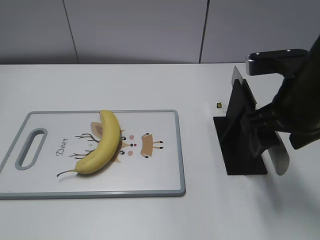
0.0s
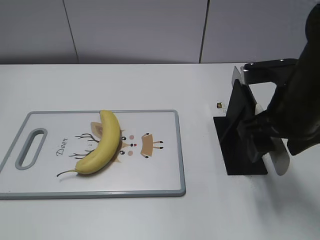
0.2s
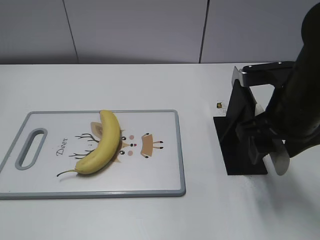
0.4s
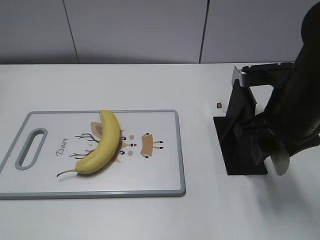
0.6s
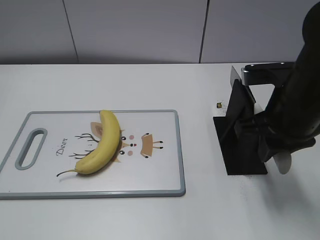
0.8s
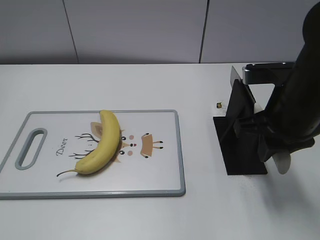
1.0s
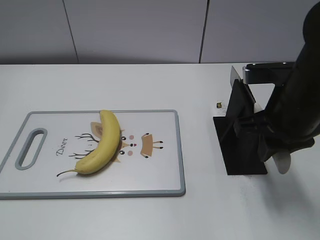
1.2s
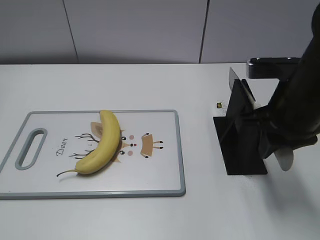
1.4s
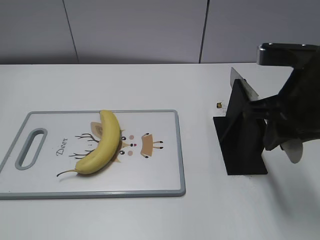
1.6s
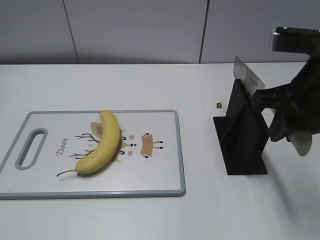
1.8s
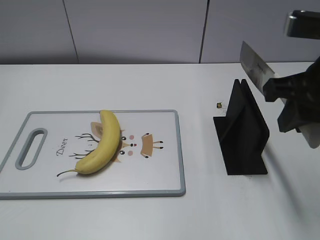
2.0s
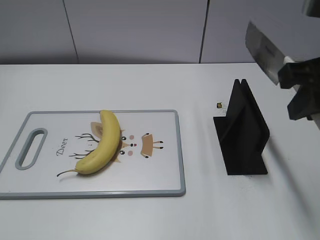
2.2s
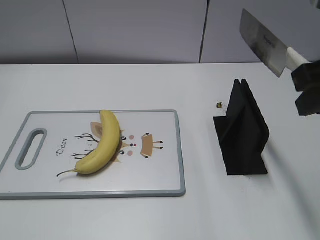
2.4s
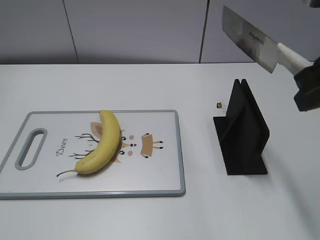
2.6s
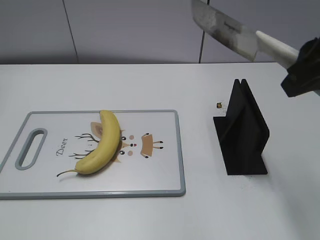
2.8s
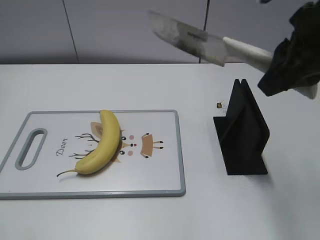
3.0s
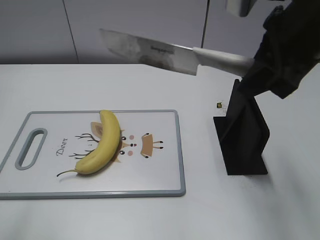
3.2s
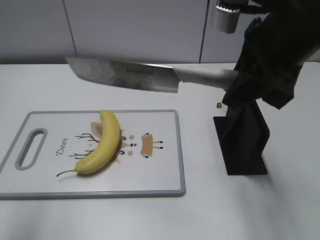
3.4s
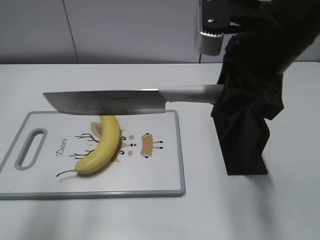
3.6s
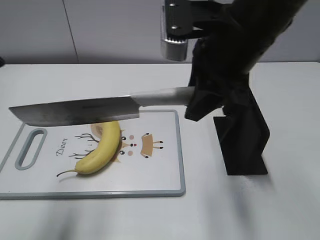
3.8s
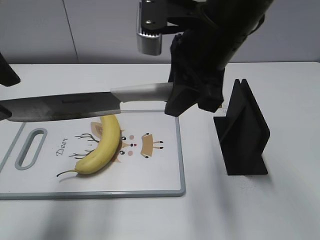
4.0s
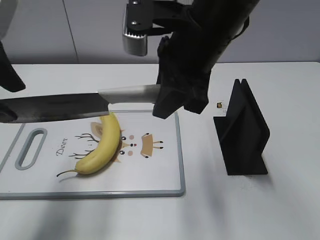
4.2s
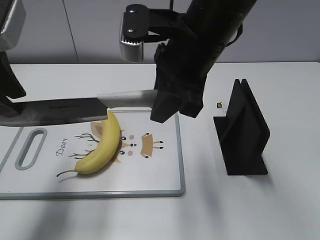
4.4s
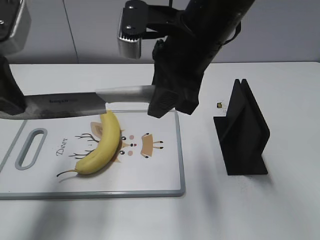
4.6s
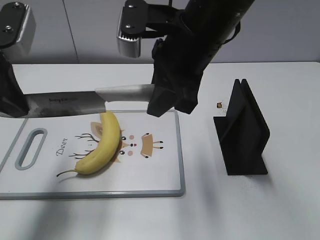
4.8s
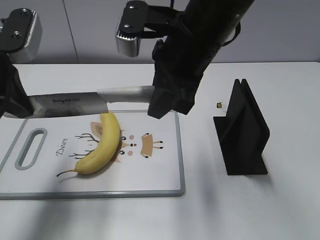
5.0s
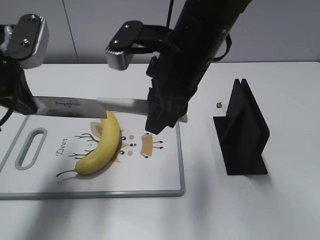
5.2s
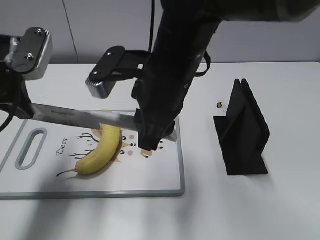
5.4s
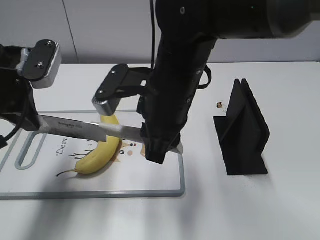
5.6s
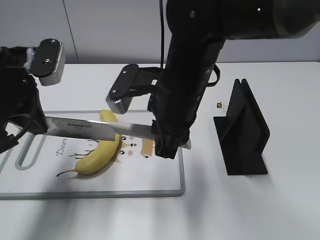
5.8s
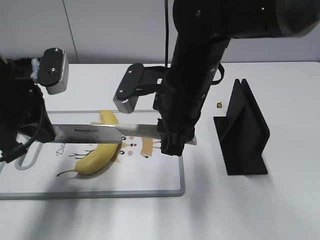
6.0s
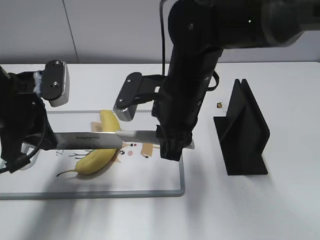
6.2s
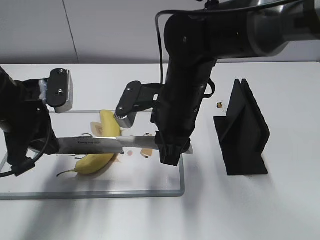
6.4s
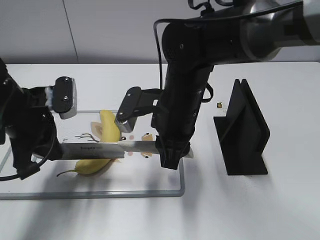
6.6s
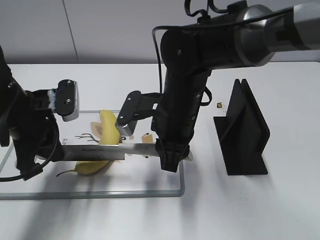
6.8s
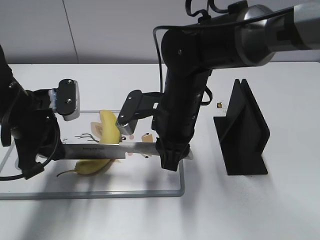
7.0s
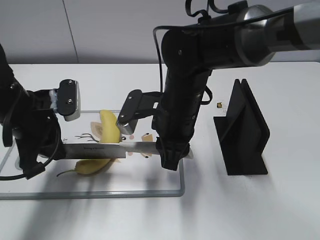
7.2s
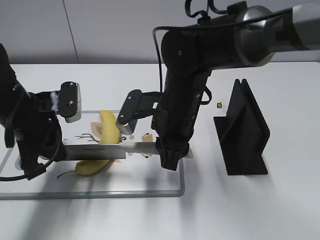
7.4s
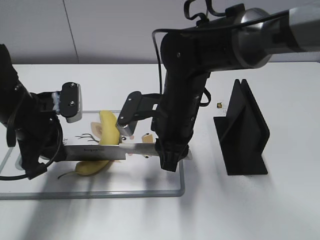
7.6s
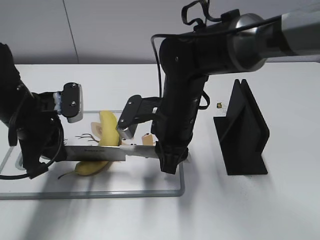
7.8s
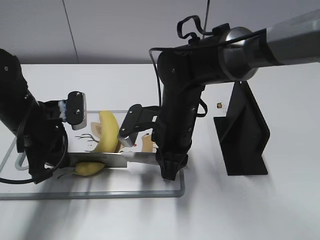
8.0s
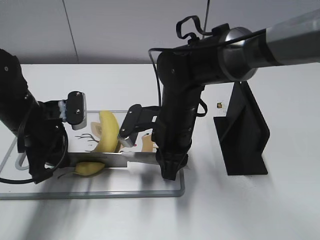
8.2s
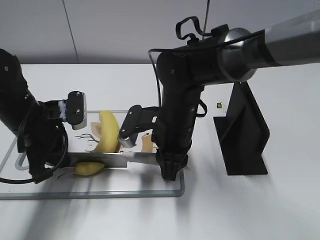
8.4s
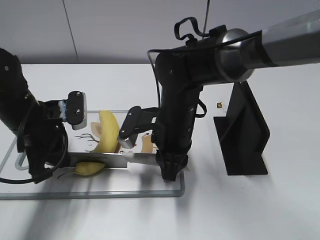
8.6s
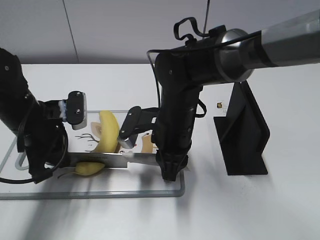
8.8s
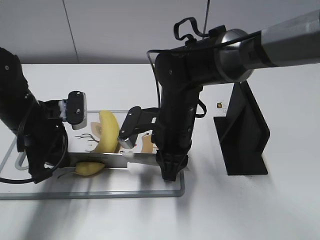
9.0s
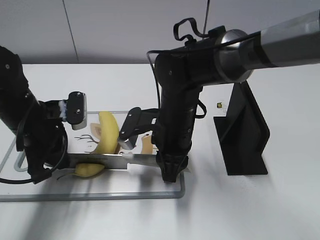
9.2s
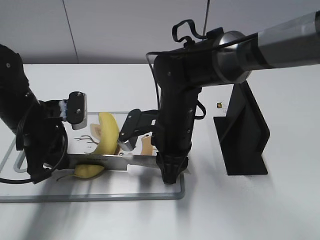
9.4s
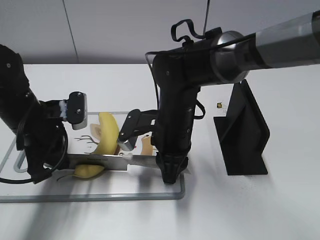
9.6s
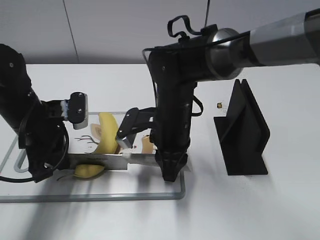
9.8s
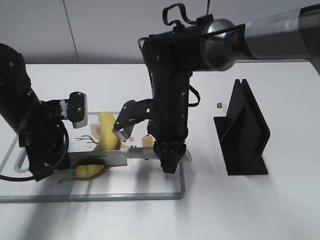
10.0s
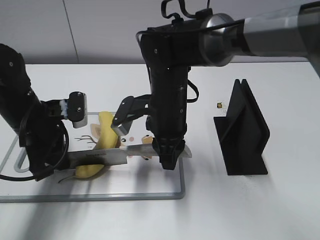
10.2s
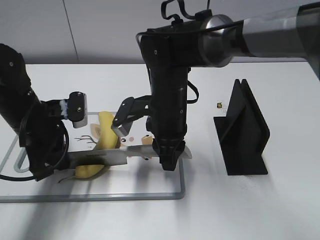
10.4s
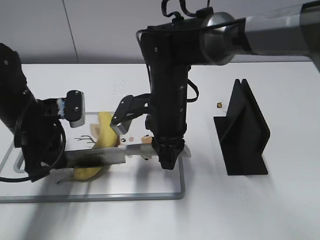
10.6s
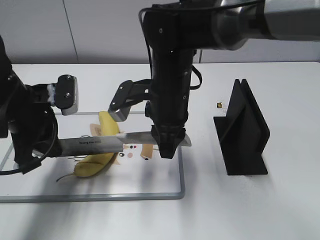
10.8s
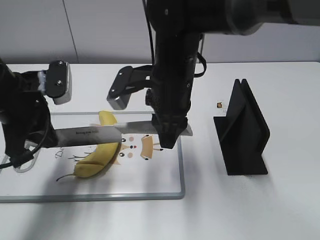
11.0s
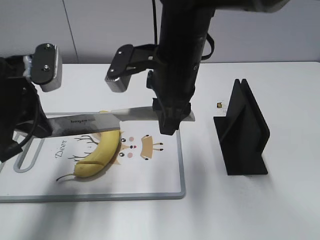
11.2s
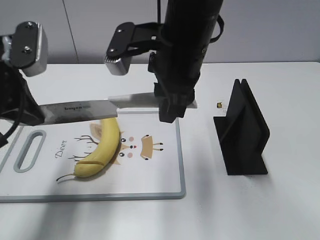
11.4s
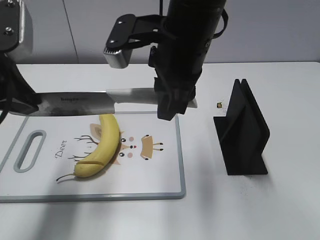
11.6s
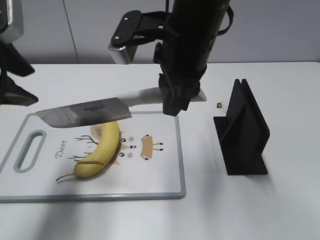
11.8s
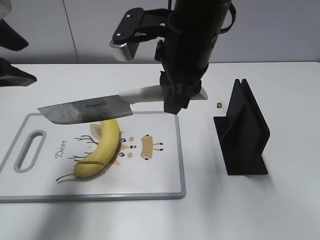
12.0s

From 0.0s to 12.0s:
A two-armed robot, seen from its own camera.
Task of the whole recording: cut banana.
Step, from 0.0s to 2.2s: Grab the knife handle with your right hand.
Step, from 2.4s to 7.2s: Lift the knife with your right hand.
From 0.0s to 1.6s: The right gripper closes.
From 1.6s to 3.0s: The left gripper heads upward and forward, covering some 10 cm. The right gripper is displaced upward by approximately 10 cm.
From 3.0s to 4.4s: The left gripper heads forward, covering approximately 20 cm; the right gripper goes some 15 cm to the left and downward.
From 4.4s to 6.0s: Both grippers travel together downward, some 10 cm. The left gripper closes.
From 6.0s to 7.6s: Both grippers travel together downward, some 5 cm.
From 7.6s to 9.0s: There are only small adjustments of the grippers.
From 10.4s to 12.0s: The two grippers go about 15 cm upward. The left gripper opens its fingers.

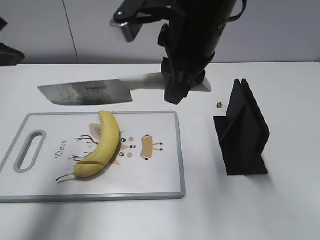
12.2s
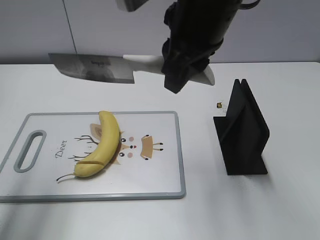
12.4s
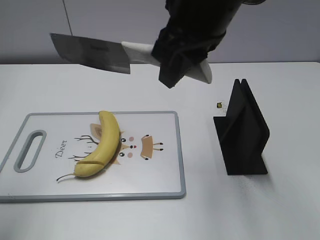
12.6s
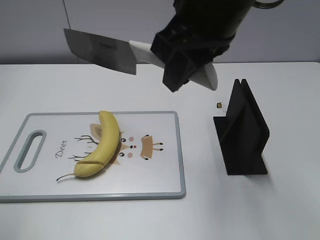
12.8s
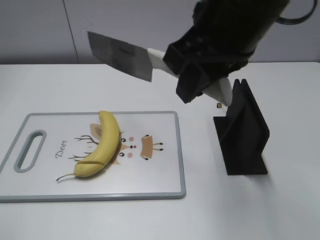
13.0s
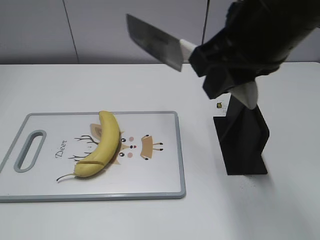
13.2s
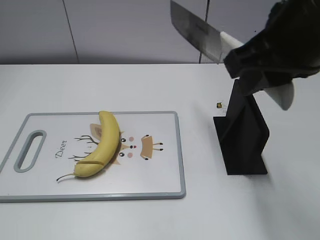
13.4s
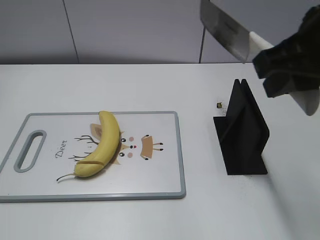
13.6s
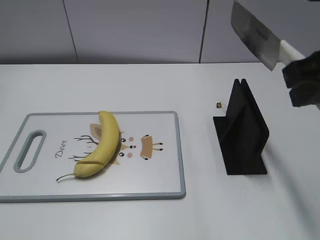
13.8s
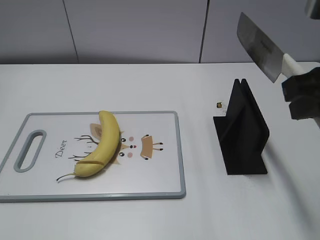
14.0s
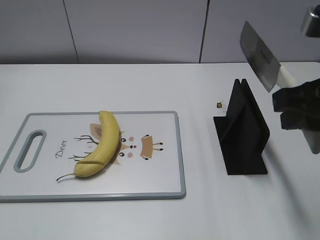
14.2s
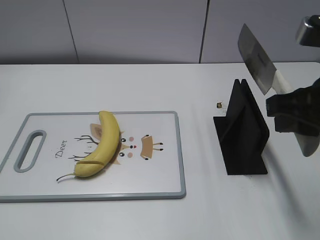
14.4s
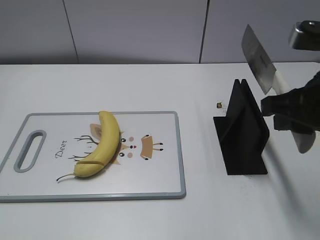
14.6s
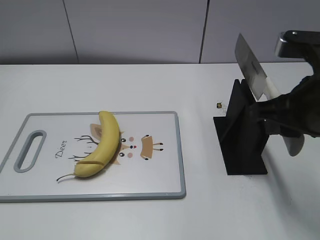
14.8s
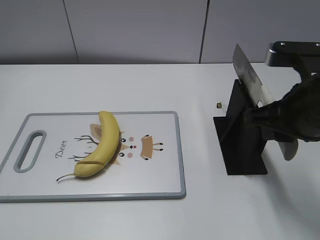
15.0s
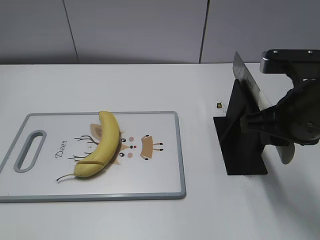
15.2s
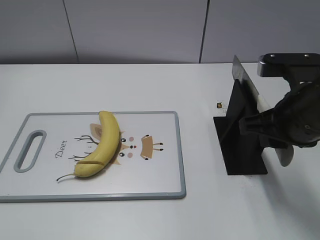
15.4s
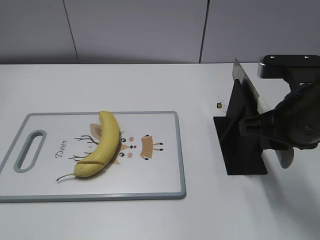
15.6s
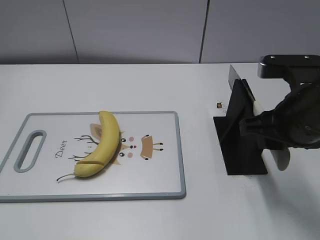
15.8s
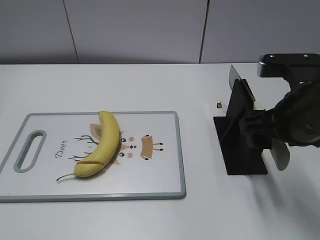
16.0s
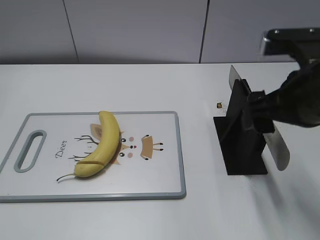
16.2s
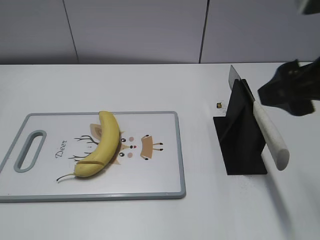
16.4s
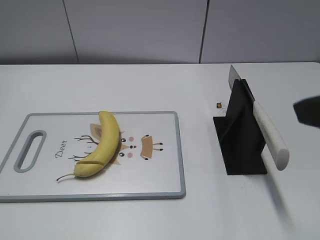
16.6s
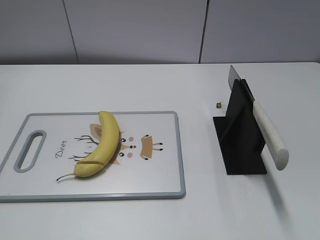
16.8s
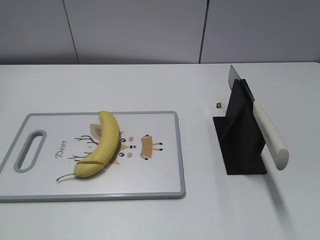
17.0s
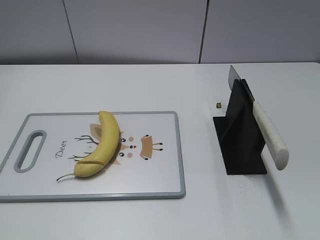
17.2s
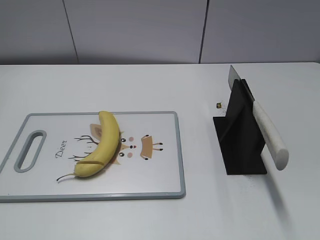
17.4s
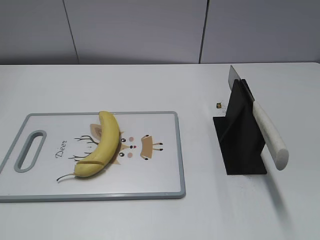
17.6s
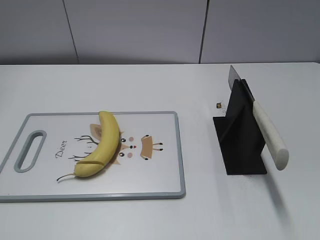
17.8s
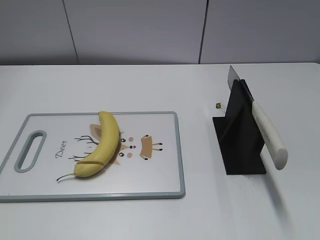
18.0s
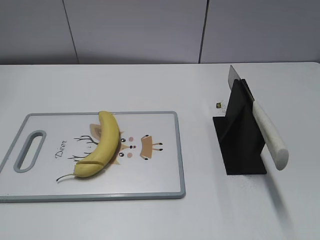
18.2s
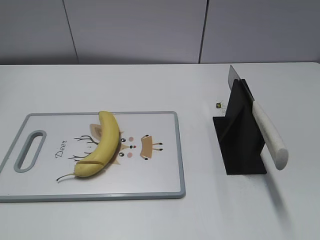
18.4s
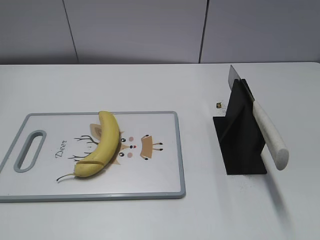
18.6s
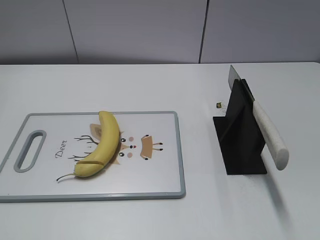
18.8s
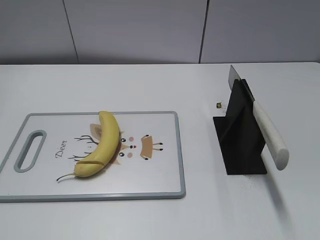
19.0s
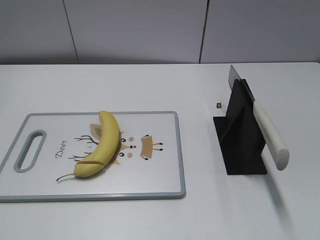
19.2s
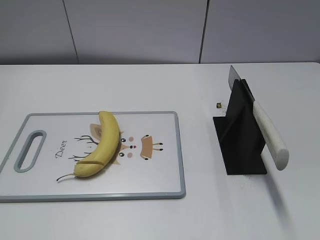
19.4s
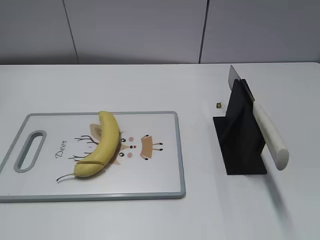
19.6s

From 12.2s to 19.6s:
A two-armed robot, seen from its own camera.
Task of the whole recording: cut banana.
Step, from 15.6s to 19.6s: Place the knife on the storage rack with your right hand.
From 12.2s to 13.6s: The right gripper is displaced to the right and backward by about 15 cm. The left gripper travels backward by about 25 cm.
From 13.6s to 15.2s: The right gripper moves downward, approximately 10 cm.
From 15.2s to 16.6s: The right gripper shifts some 15 cm upward and backward, and opens up.
From 16.6s to 18.2s: The right gripper travels backward and to the right by roughly 15 cm.

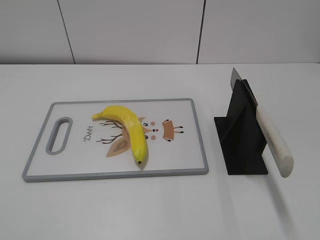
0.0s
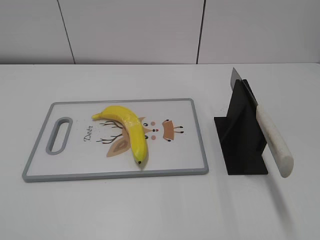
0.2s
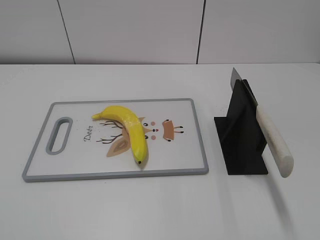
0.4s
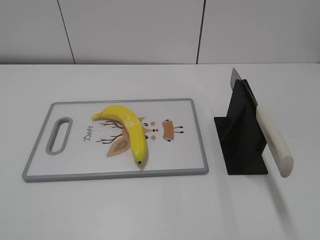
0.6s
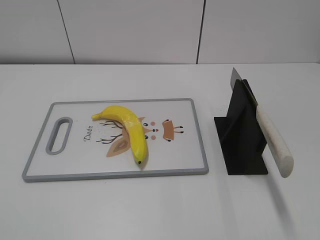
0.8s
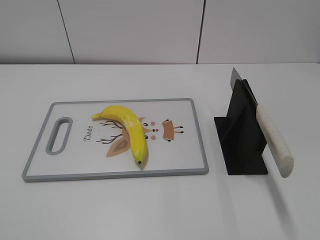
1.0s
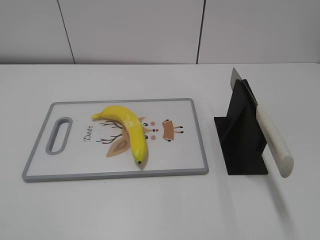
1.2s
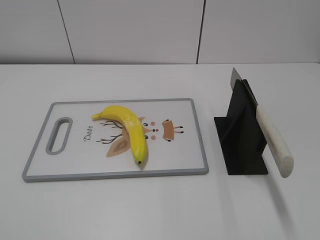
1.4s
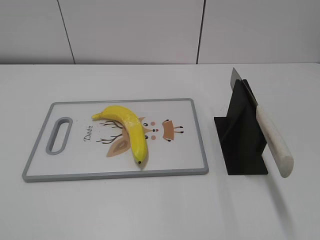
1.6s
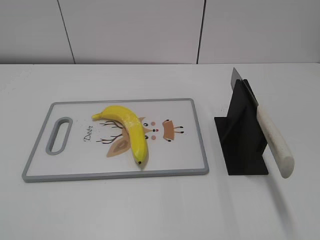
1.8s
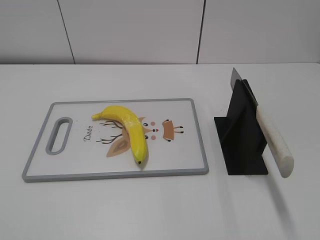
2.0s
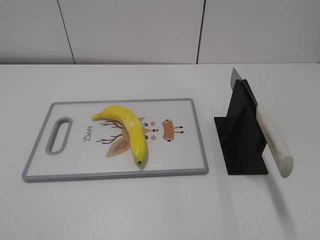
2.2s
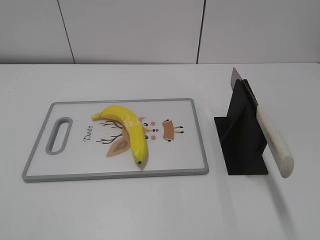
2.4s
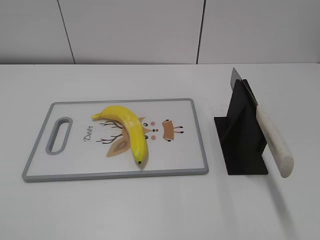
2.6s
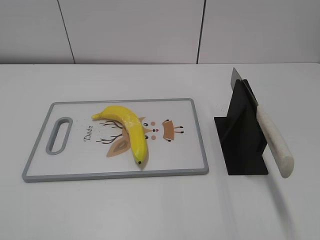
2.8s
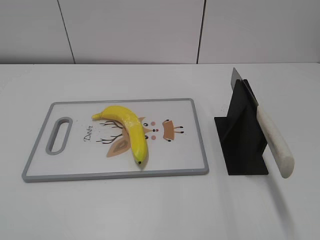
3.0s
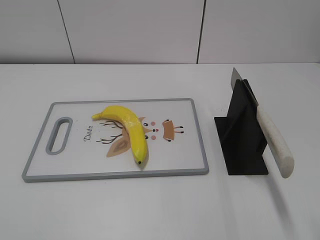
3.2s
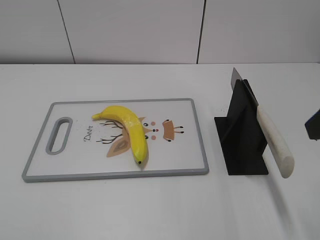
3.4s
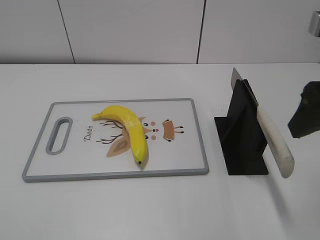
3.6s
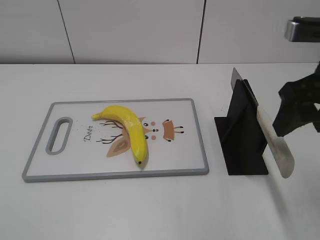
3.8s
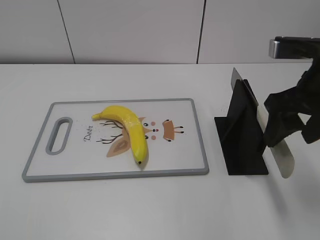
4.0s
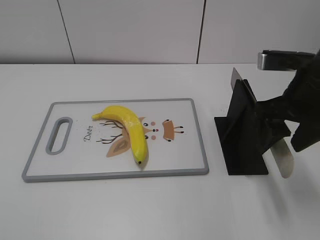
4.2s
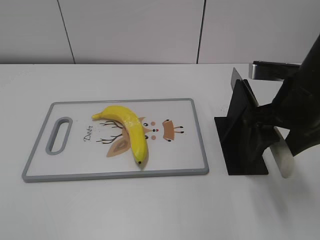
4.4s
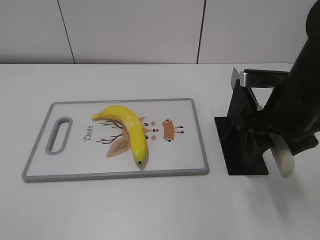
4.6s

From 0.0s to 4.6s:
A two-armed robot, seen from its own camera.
Task of the whole recording: cut plastic banana.
From 3.0s to 4.6s: The right gripper moves forward, downward and to the left, approximately 20 cm.
